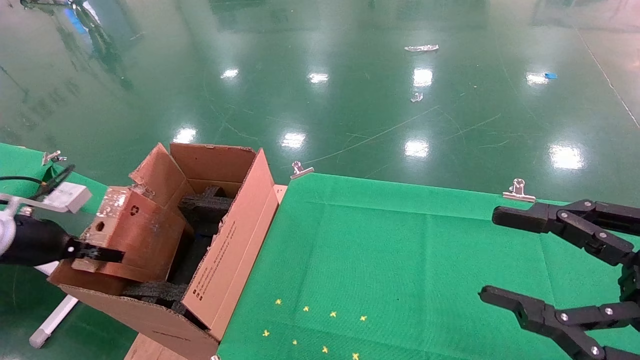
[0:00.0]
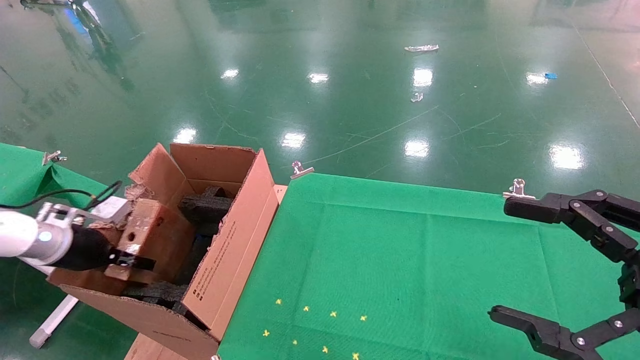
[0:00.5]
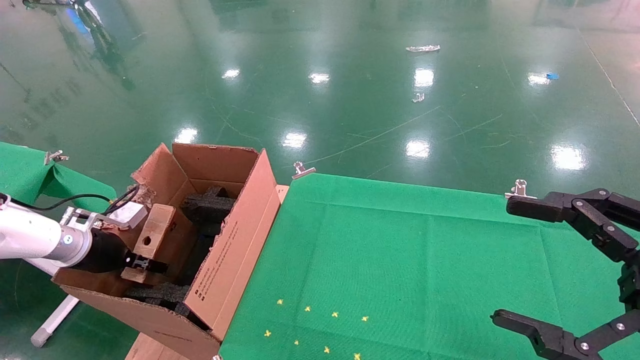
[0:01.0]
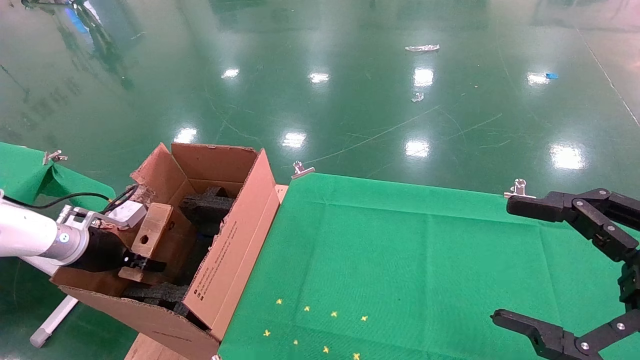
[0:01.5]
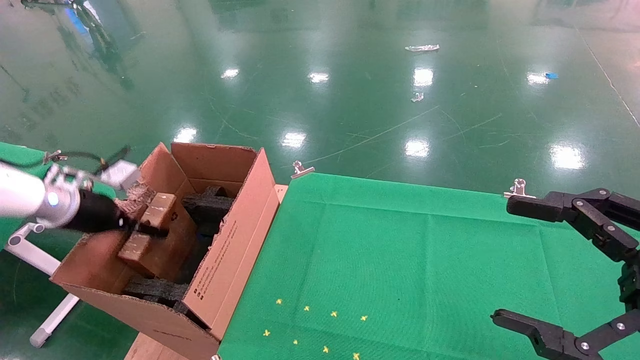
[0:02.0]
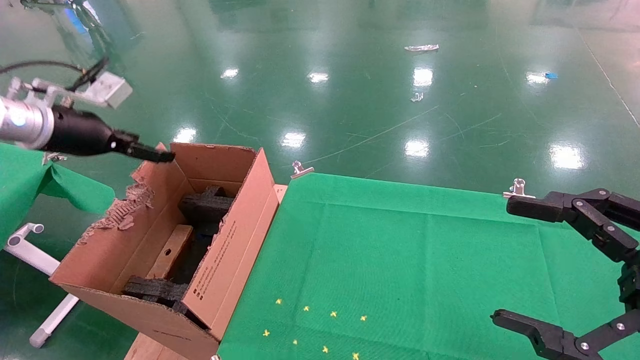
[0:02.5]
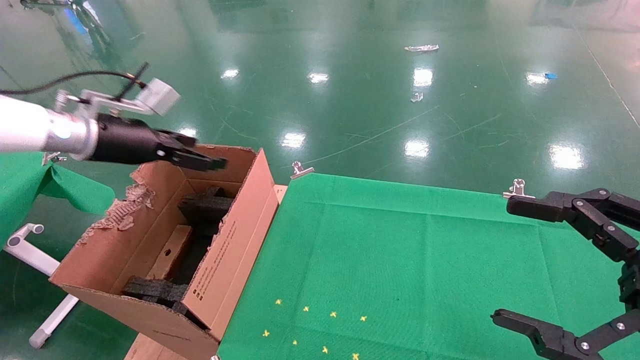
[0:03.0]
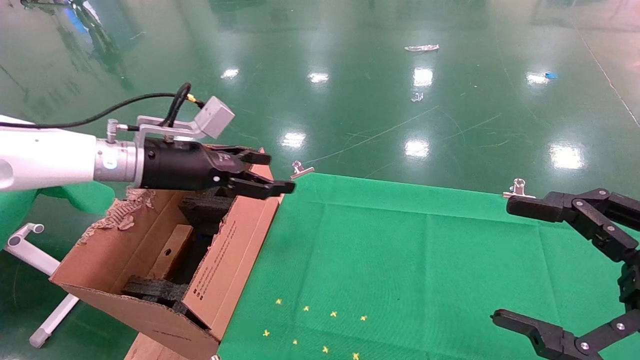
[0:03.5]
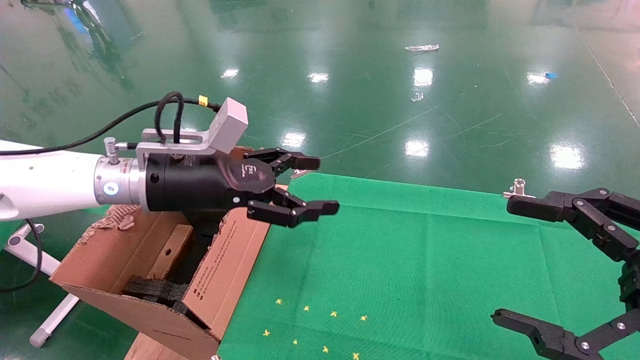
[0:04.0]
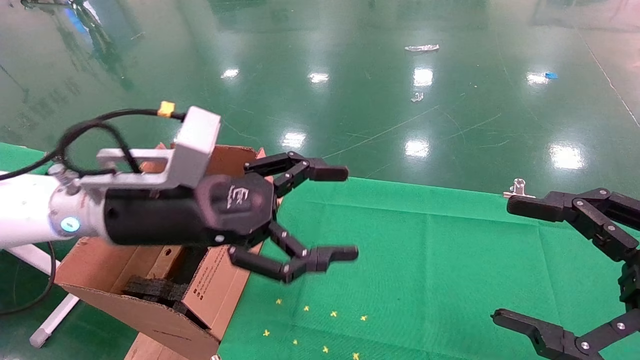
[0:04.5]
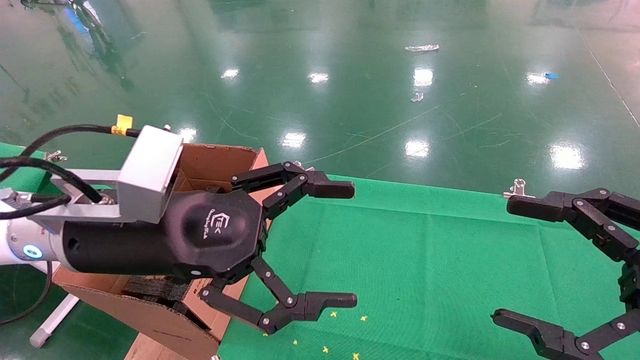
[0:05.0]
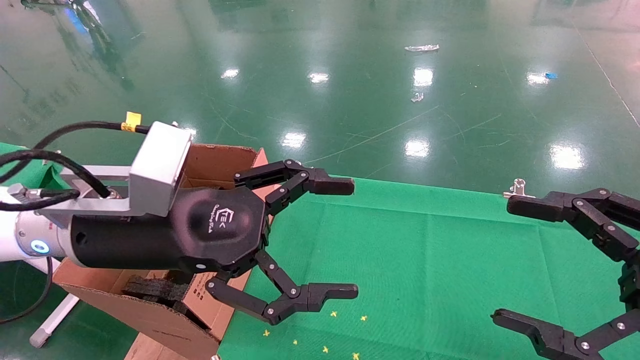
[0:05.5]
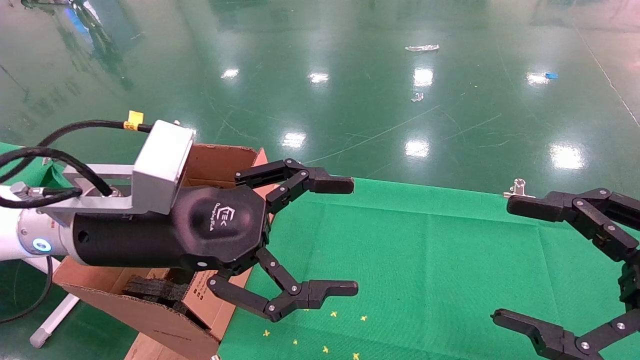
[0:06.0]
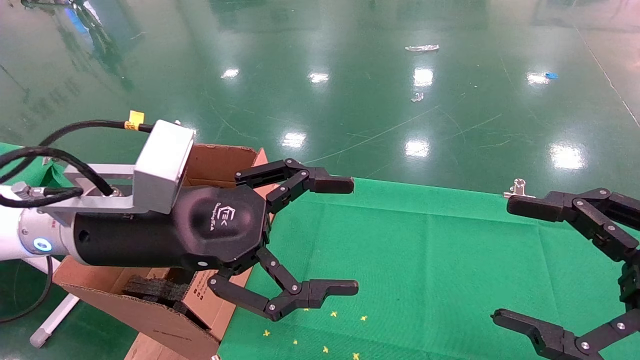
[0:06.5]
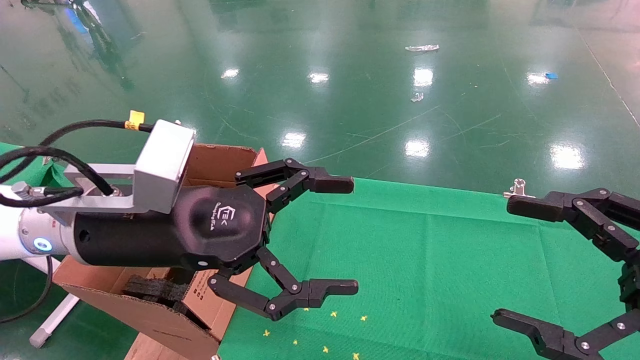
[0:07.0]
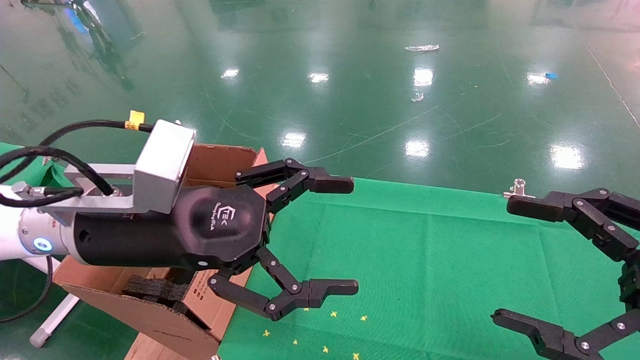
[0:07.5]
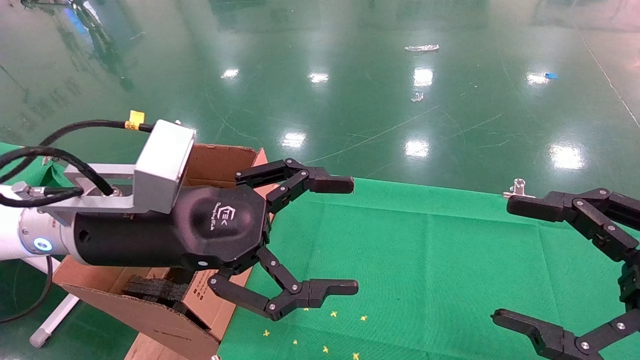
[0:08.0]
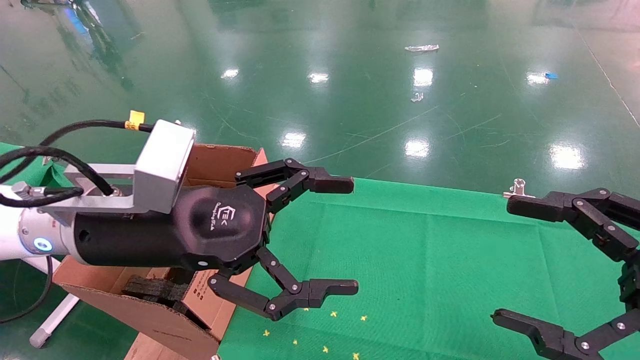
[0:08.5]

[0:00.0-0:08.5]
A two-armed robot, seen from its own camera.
Task of the whole recording: using a robotic arm to pick up a cardboard box and palace it the carton.
Step, 0:00.0 to 0:03.5: Place the mouse and the power cord paper box into the container.
0:00.0 to 0:02.0: The left gripper is displaced forward by about 10 cm, goes downward and returns, roughly 5 cm each way, and opens up, while the right gripper opens its fingers.
0:02.0 to 0:04.0: The left gripper moves to the right, some 25 cm, and opens.
0:04.0 to 0:06.5: The left gripper shifts about 10 cm backward.
0:06.5 to 0:08.5: Neither gripper changes place.
